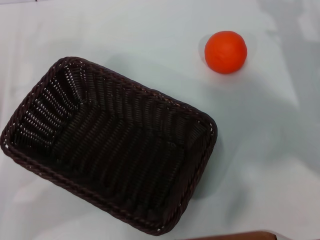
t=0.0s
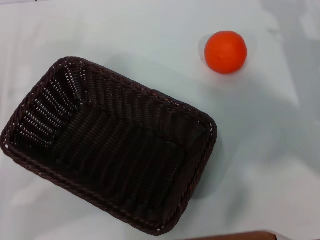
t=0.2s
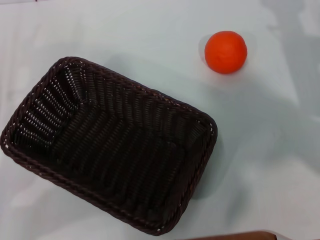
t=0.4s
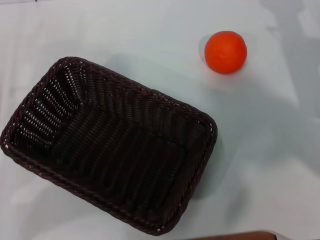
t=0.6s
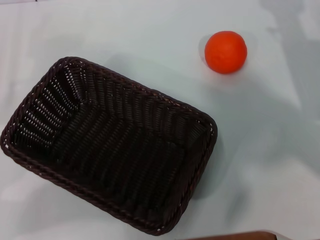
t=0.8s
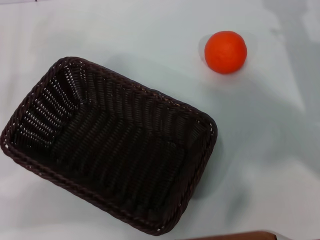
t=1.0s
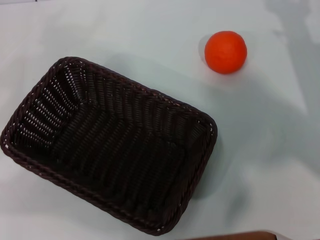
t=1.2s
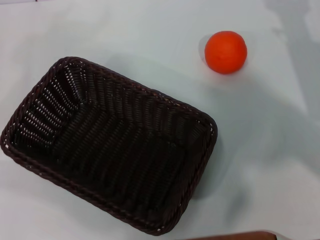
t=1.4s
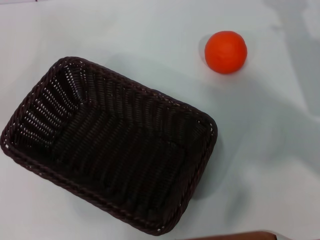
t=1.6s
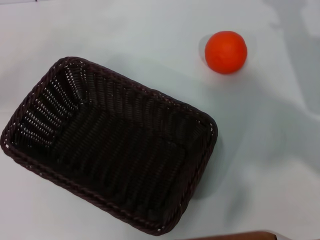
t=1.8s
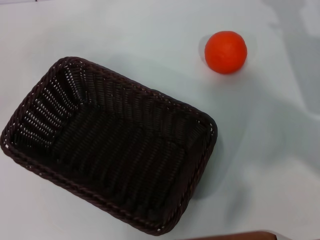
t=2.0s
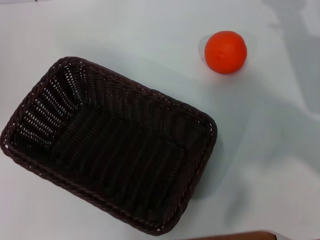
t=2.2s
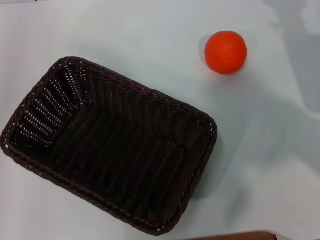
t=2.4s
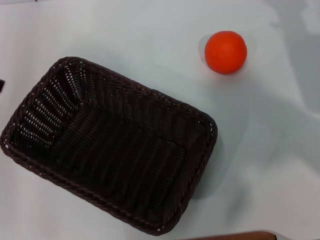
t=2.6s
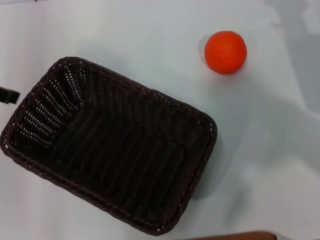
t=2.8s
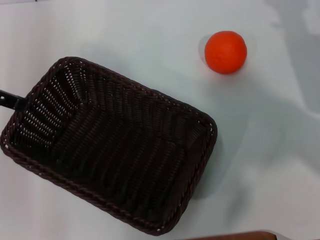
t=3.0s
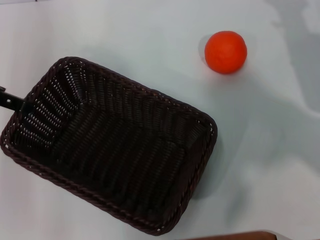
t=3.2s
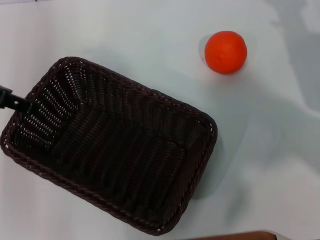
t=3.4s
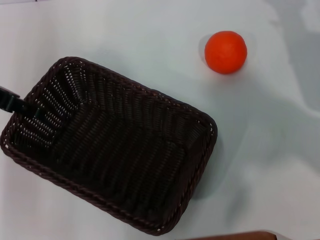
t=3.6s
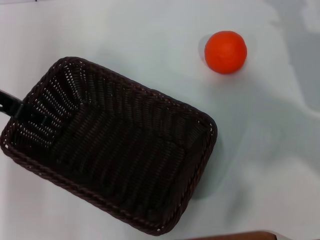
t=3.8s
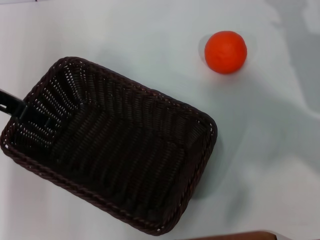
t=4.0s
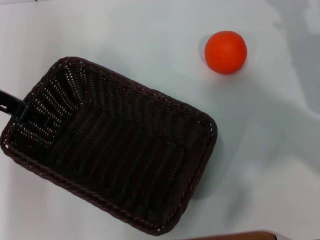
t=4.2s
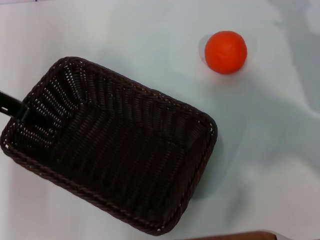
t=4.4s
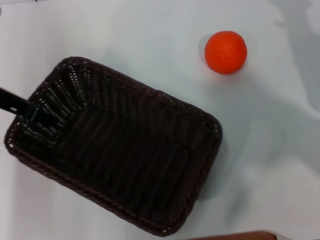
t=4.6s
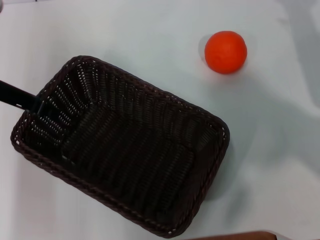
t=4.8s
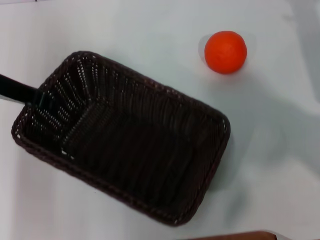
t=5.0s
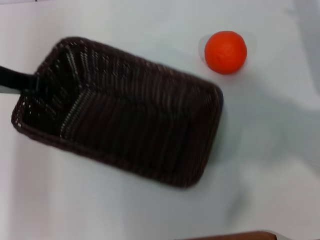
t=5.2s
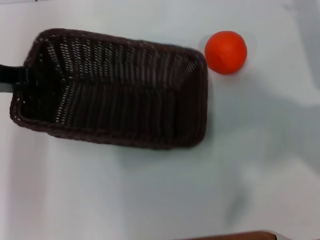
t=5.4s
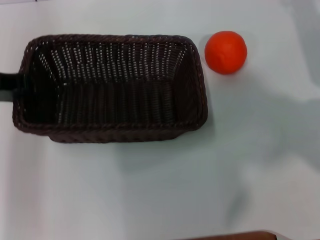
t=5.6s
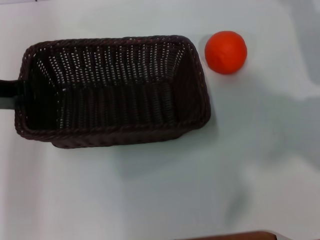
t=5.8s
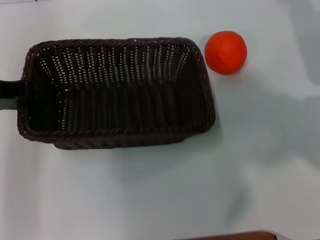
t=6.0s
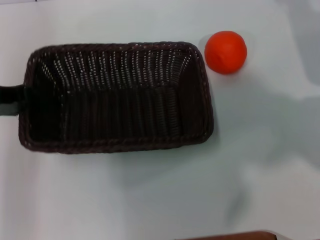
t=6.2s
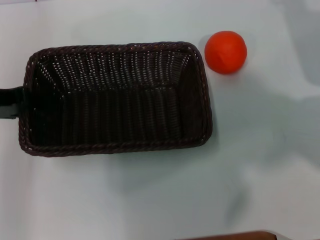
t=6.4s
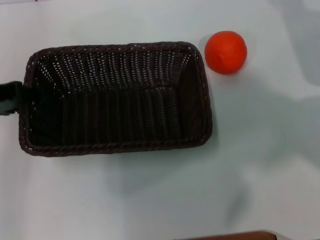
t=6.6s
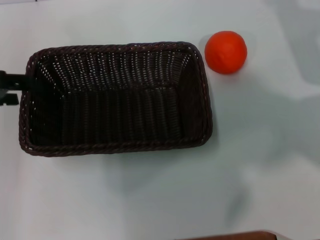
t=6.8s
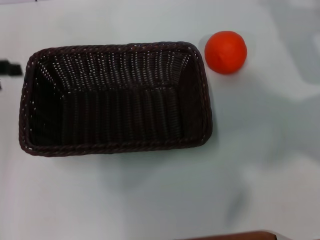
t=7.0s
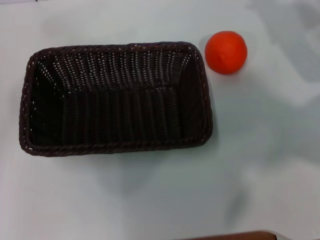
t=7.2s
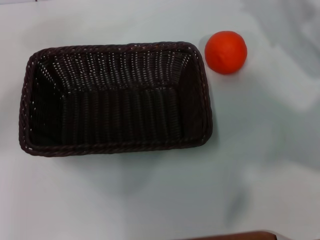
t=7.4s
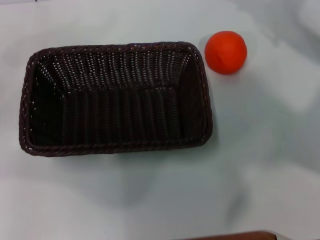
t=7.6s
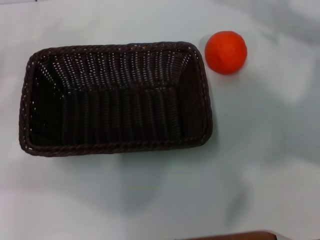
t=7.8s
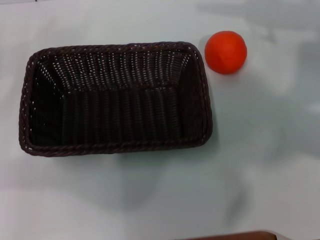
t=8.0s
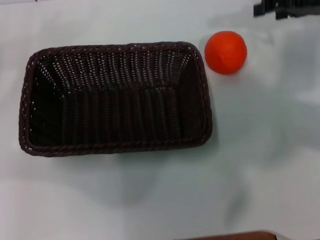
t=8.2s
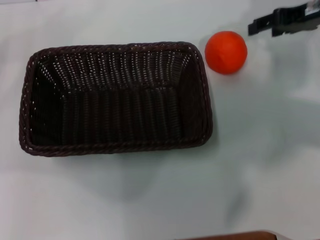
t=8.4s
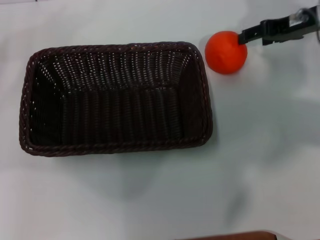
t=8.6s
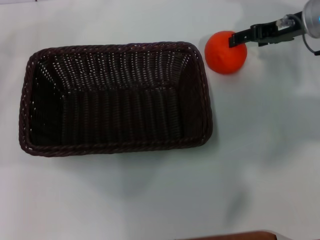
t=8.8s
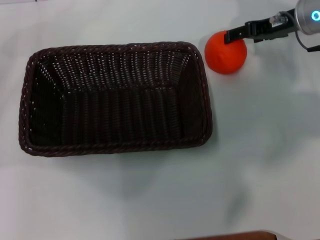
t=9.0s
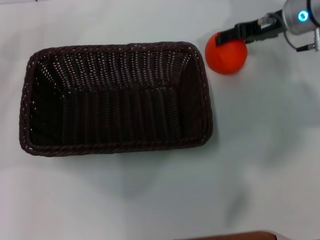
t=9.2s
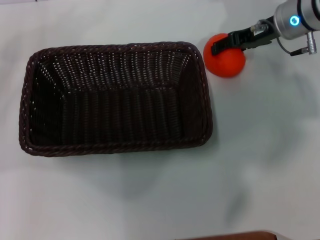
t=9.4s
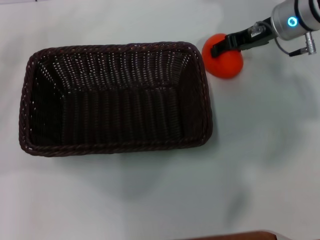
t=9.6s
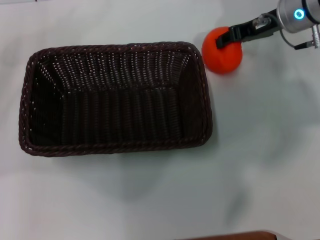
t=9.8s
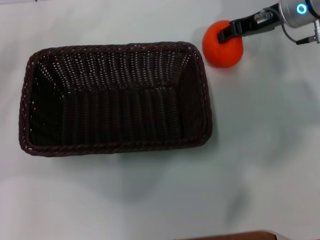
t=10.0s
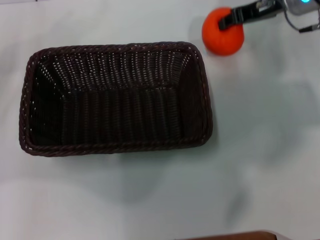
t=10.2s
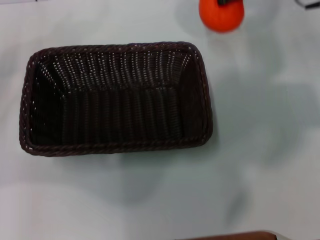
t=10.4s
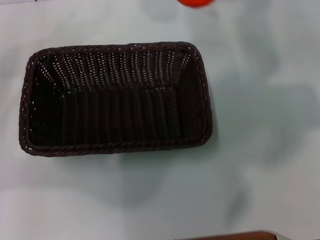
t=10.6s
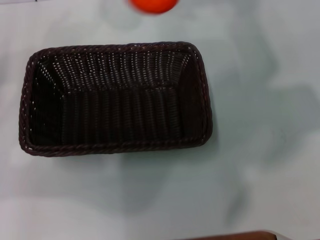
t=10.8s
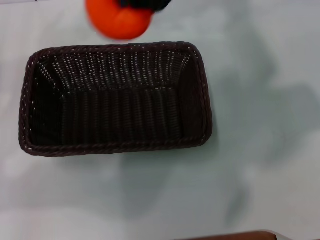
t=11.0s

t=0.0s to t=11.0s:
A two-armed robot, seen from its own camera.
Task of the whole recording: the left gripper pick up the black basket and place it horizontally in the middle of the table, the right gripper pick up the orange and place it into the black basket.
Step, t=0.0s to t=5.0s: Pick up the dark basket with the left gripper.
Step, t=5.2s to t=7.0s: Place the dark basket in the center of view with the left gripper.
Step, t=7.2s to t=10.2s: Pick up the orange with the right gripper.
t=0.0s to t=1.6s: The left gripper is displaced upward and to the left by roughly 20 cm.
t=1.6s to t=3.2s: The left gripper shifts about 15 cm to the right and forward.
t=3.2s to t=4.8s: The left gripper ends up approximately 5 cm from where it was, and closes its fingers.
t=6.2s to t=7.8s: The right gripper moves upward, about 10 cm; the left gripper shifts some 15 cm to the left and backward, and opens.
t=7.8s to t=9.4s: The right gripper moves to the left, downward and forward, roughly 10 cm.
t=9.4s to t=11.0s: The right gripper heads upward, to the left and backward, covering approximately 20 cm, and closes its fingers.

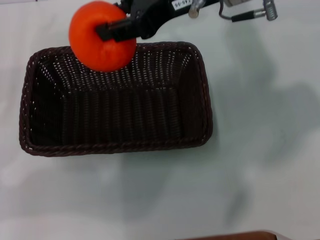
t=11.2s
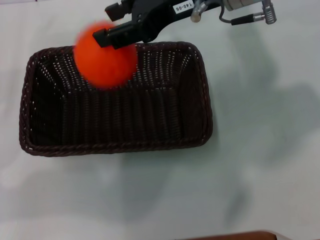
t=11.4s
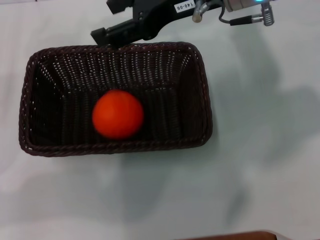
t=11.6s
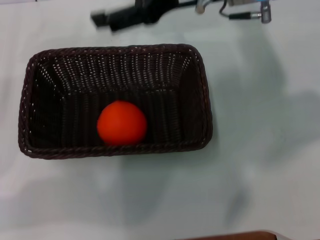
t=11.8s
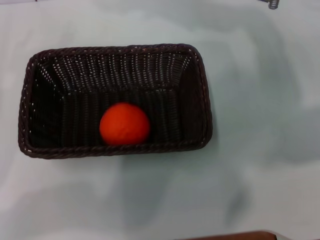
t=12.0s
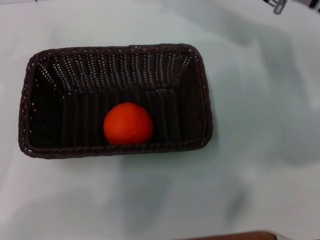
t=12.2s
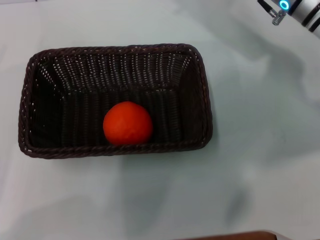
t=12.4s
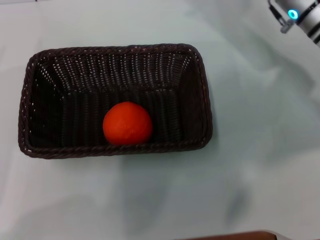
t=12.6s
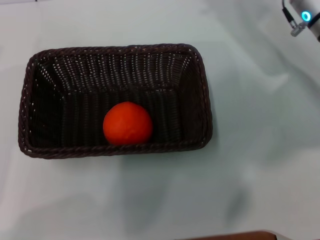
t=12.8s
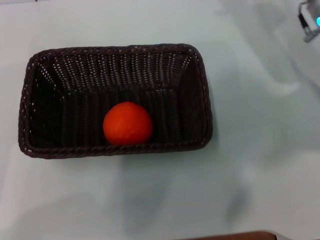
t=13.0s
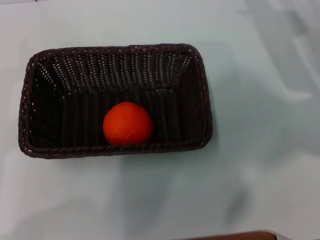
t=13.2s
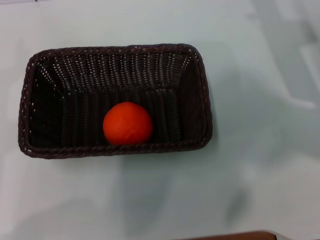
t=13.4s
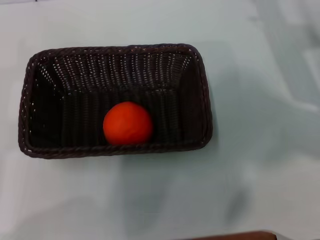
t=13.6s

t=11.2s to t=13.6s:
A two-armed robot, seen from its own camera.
Task of the whole recording: the left gripper pick up the black basket and place it horizontally in the middle of the table, the right gripper pick up the orange and place it into the black basket.
t=11.2s to t=12.4s: The left gripper shifts roughly 5 cm backward. The right gripper is displaced downward and to the right by some 15 cm, and opens its fingers.
t=12.4s to t=13.6s: The right gripper travels to the right and downward by roughly 10 cm.
